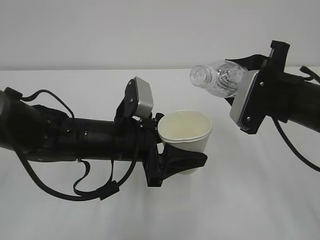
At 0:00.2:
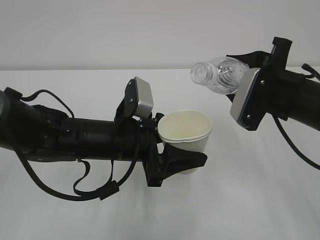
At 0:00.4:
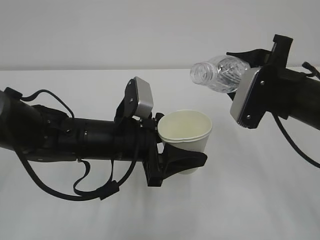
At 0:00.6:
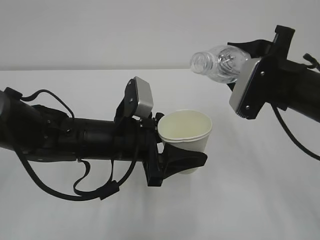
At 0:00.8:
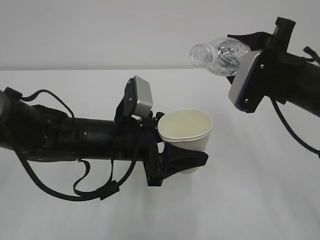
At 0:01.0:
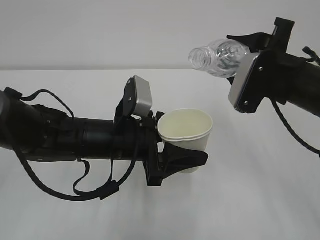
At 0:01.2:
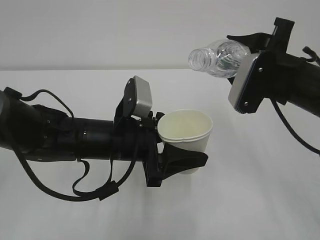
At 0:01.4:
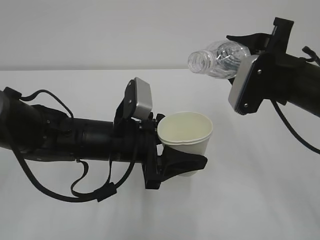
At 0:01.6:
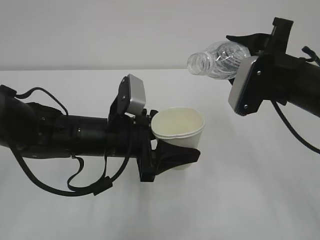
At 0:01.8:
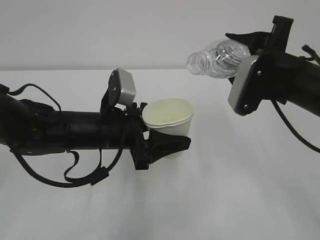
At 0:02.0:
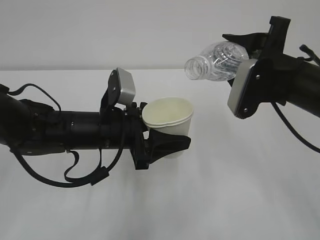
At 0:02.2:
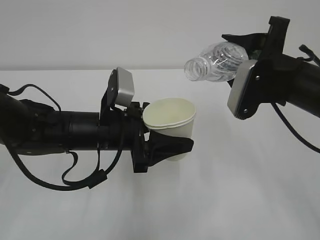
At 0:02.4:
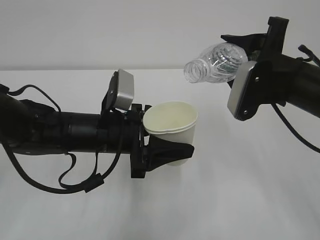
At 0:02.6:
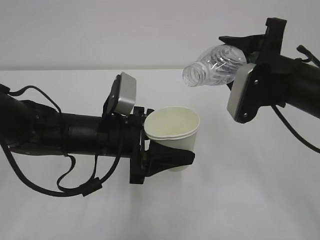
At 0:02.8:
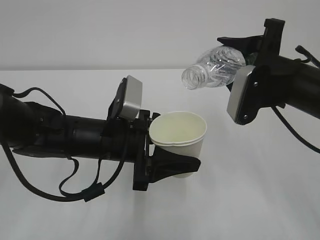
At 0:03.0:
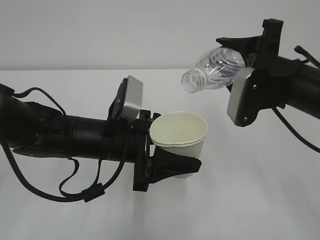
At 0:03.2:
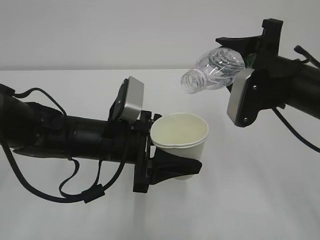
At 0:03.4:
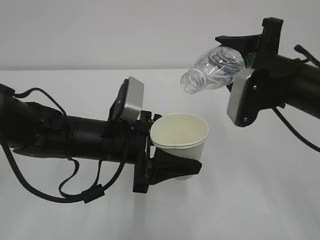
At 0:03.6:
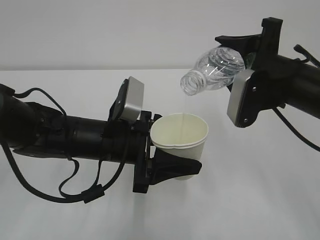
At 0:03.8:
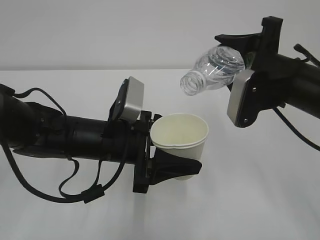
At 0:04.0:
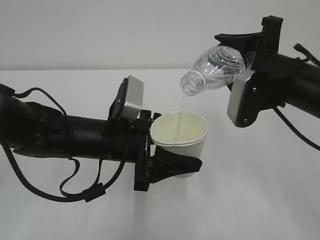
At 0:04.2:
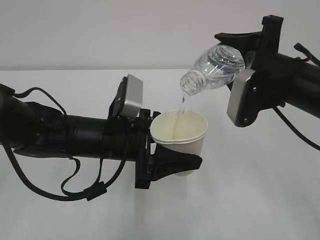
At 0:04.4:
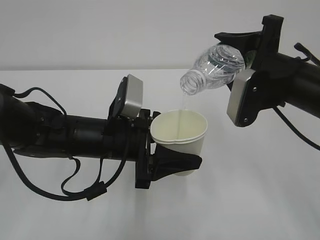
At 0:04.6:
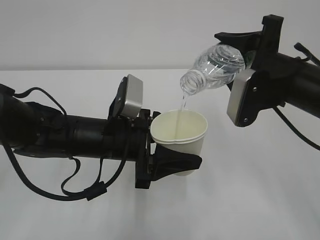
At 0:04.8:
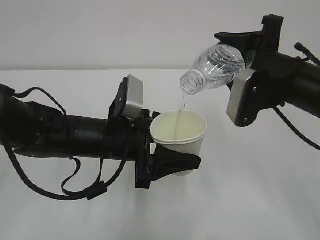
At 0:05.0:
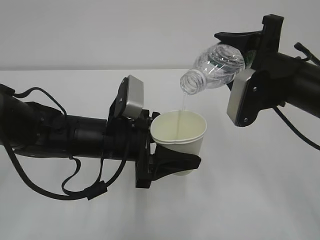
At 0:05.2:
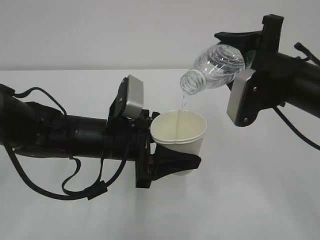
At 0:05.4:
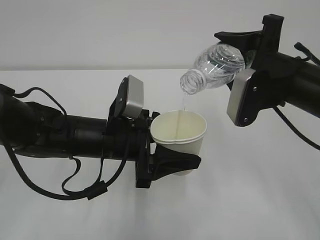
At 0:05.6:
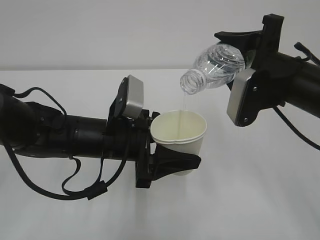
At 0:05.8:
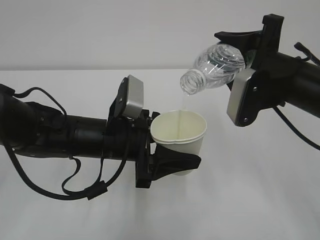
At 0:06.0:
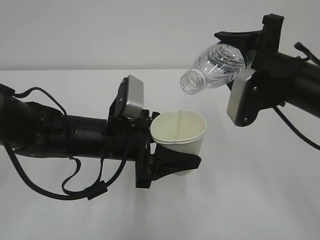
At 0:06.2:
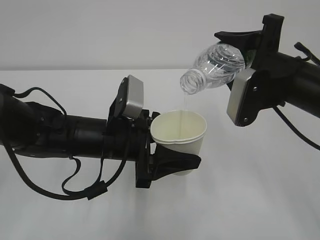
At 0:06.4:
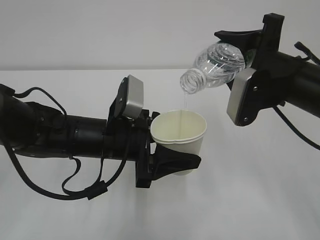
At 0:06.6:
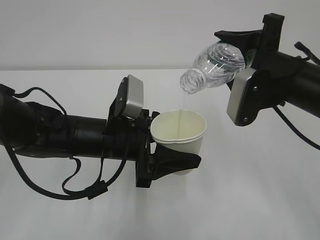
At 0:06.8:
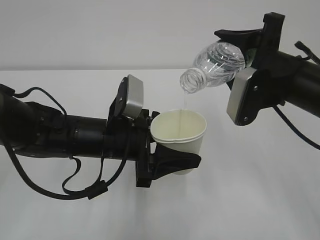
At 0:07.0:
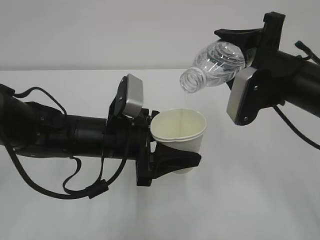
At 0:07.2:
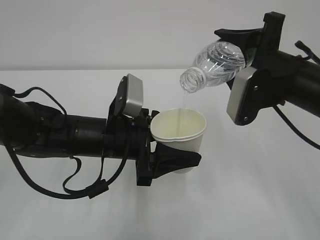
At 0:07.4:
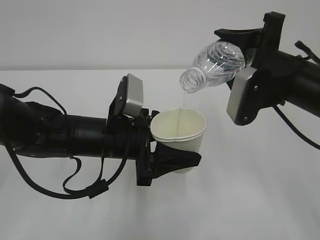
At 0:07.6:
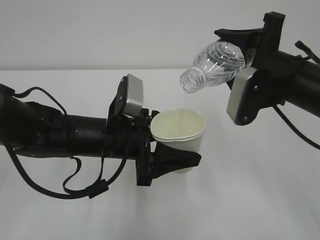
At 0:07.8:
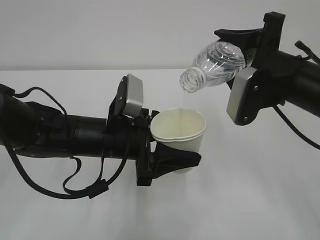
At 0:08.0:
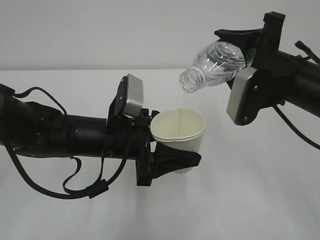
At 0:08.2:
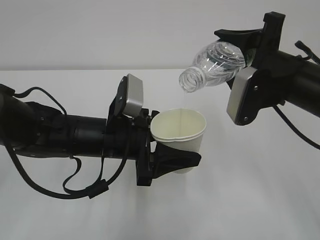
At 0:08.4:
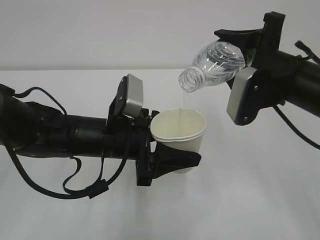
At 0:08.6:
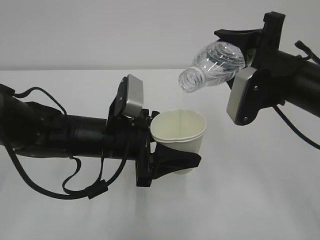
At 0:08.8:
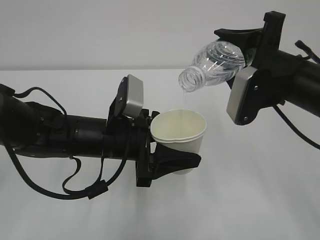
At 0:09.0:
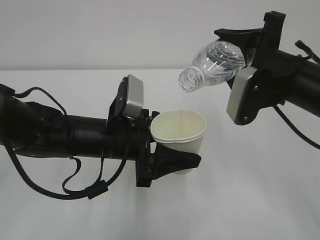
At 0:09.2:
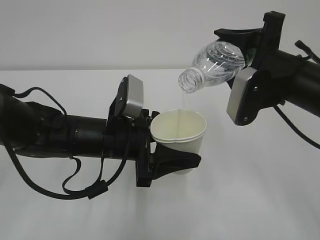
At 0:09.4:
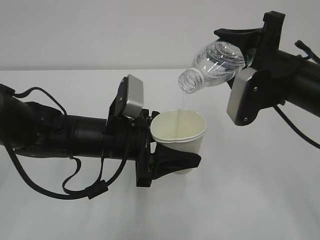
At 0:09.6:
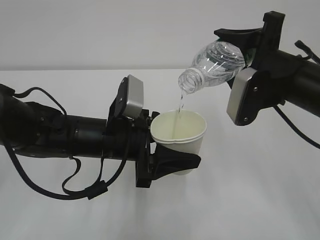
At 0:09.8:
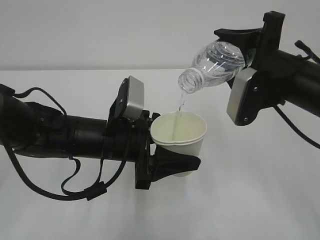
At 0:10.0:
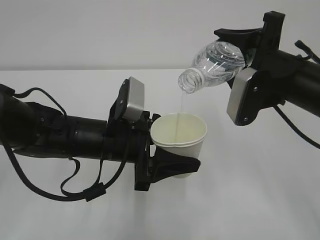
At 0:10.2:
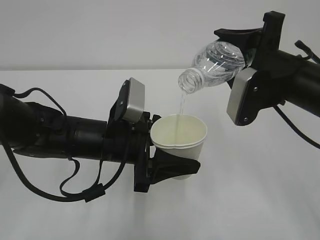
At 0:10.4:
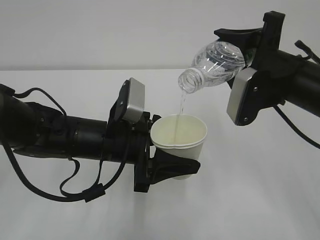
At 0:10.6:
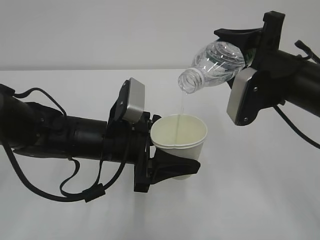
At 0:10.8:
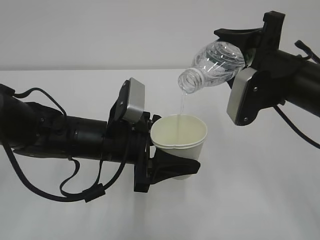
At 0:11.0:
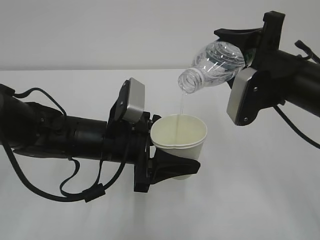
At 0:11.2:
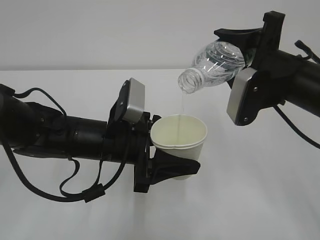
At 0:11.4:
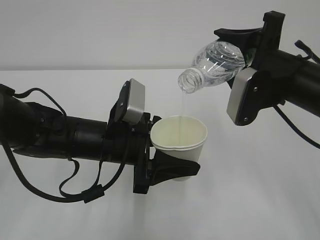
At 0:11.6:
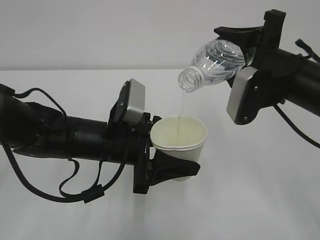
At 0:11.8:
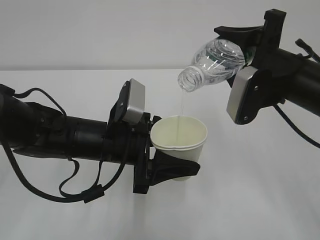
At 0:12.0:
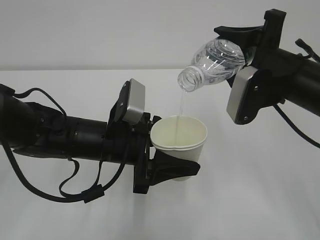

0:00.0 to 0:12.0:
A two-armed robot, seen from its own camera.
0:00.0 to 0:03.0: The grippers move only a little.
0:03.0 to 0:06.0: Both grippers stay about where they are.
0:06.0 to 0:12.0: Both grippers stay about where they are.

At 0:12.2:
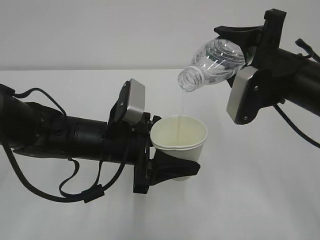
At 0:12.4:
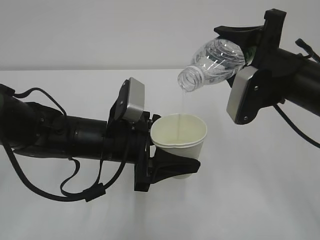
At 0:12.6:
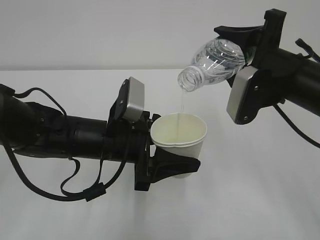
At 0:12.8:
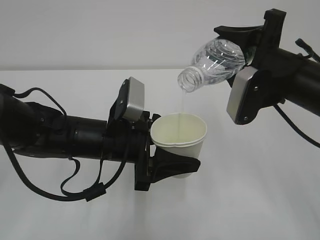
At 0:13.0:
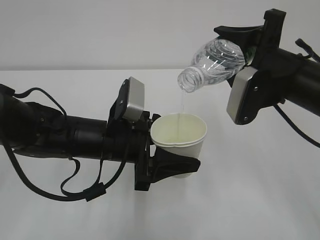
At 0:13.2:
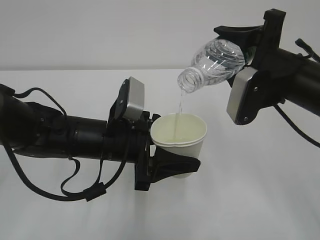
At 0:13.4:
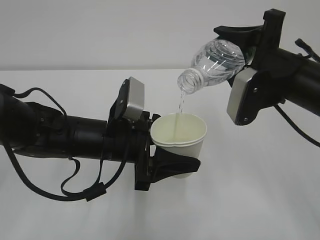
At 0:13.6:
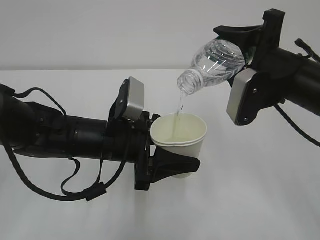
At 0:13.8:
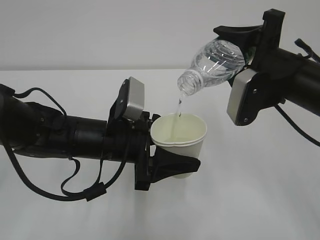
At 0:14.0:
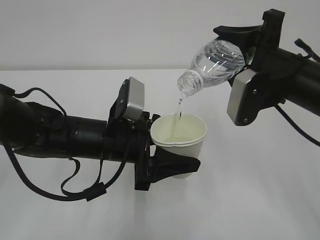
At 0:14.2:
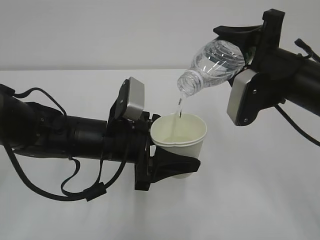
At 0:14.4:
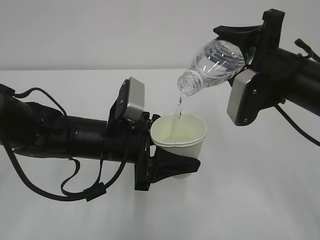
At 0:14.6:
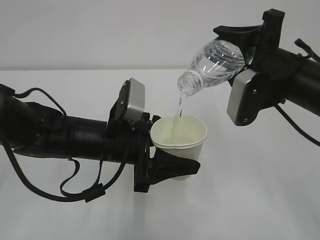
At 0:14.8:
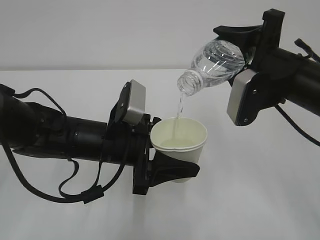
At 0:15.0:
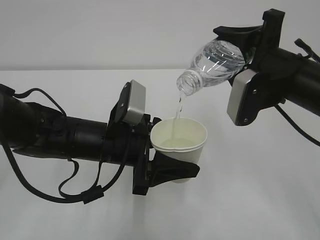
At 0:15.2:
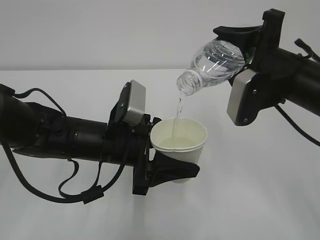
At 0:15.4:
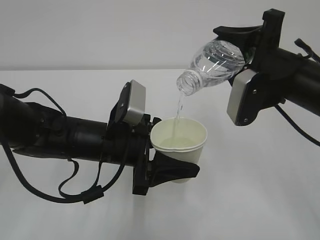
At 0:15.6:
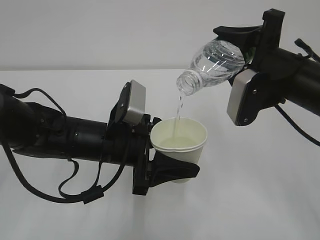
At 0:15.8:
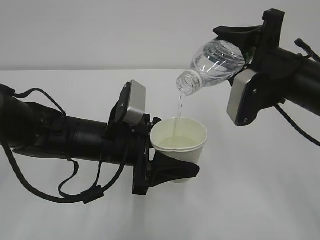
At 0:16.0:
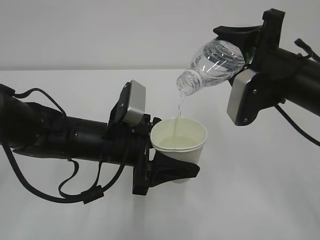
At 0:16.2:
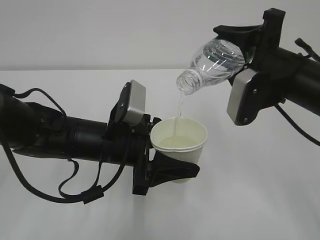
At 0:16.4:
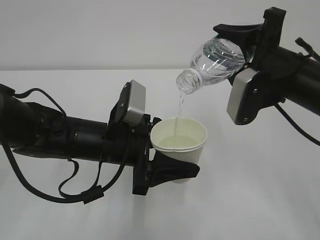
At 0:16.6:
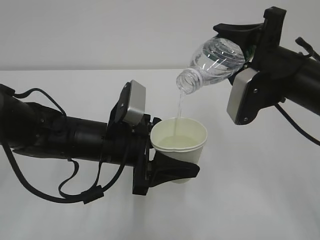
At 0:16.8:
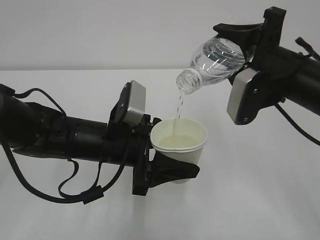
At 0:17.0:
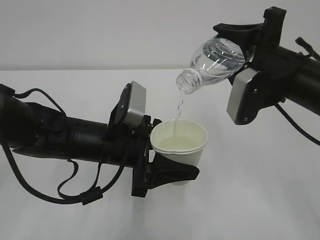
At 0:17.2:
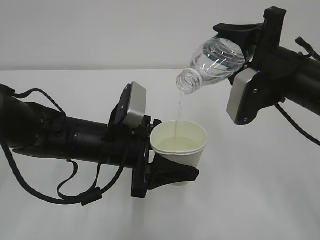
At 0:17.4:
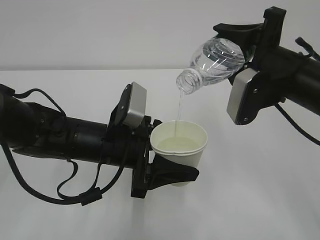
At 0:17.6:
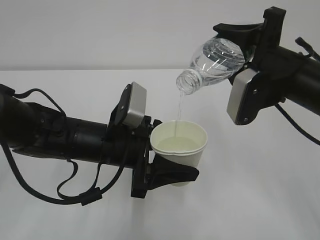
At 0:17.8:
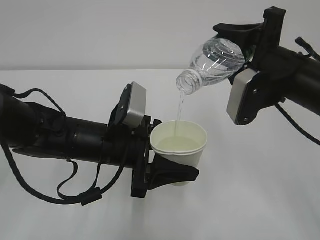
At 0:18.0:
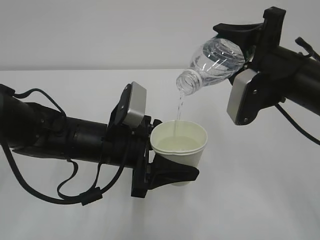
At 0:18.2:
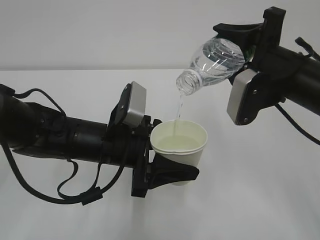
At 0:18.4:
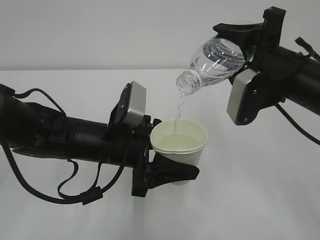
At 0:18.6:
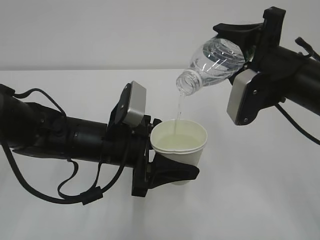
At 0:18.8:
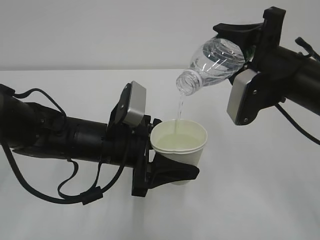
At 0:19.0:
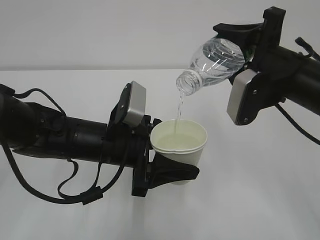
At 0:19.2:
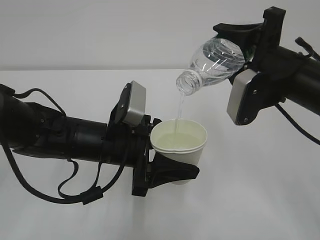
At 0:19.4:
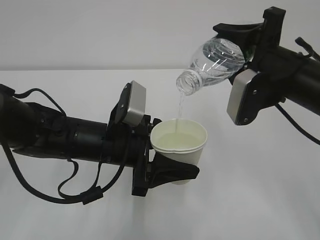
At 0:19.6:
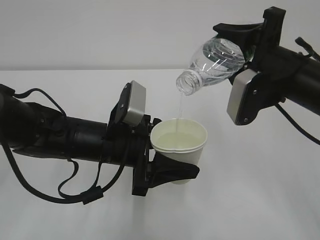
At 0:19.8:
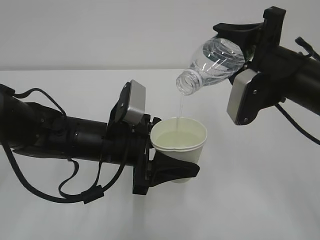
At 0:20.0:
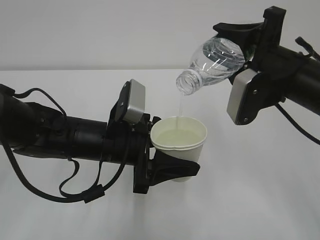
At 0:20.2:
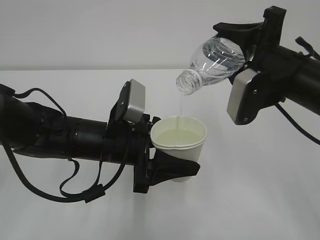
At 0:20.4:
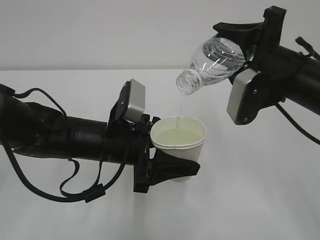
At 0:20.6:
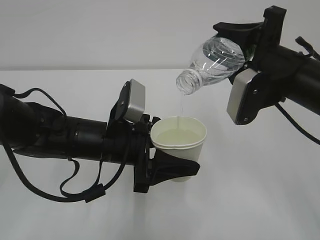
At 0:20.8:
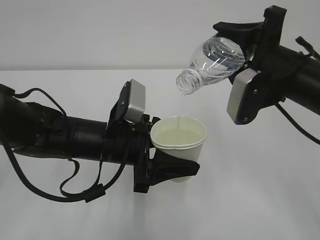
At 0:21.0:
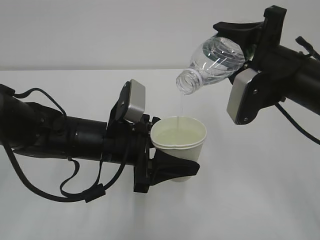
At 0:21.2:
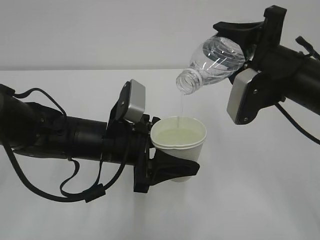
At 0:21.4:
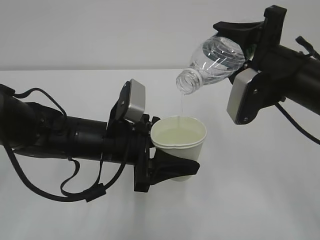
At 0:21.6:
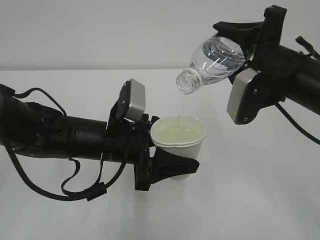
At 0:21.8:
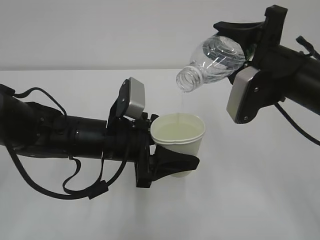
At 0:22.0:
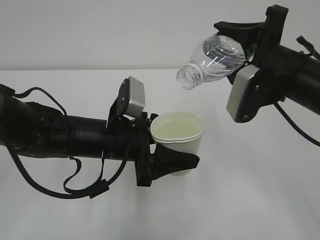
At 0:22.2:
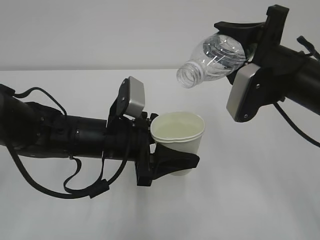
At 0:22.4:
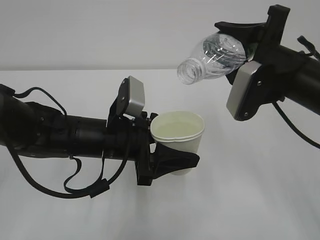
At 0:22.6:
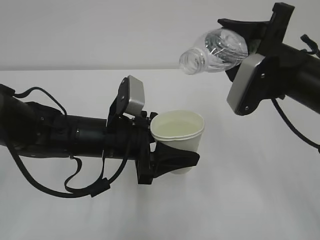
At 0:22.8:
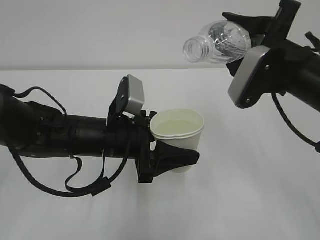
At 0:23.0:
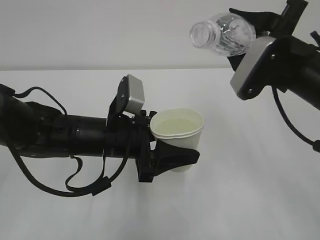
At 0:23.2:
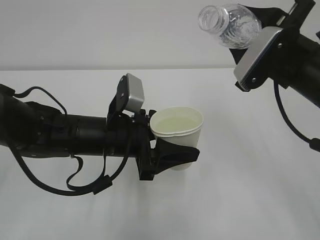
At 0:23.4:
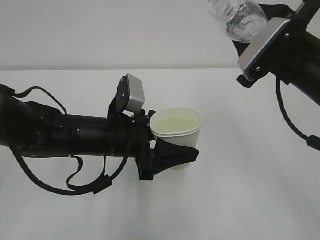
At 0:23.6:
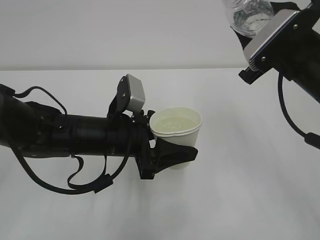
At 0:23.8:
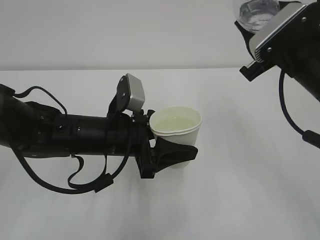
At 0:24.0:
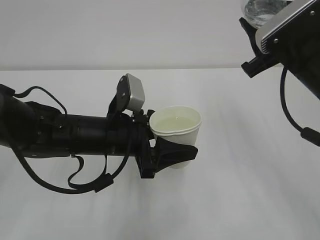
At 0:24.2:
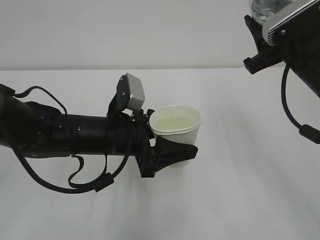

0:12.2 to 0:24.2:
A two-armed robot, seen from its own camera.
0:12.2 to 0:18.2: Neither gripper changes place.
0:18.2 to 0:21.2: The two grippers keep their place.
0:21.2 to 0:22.6: There are only small adjustments of the grippers.
